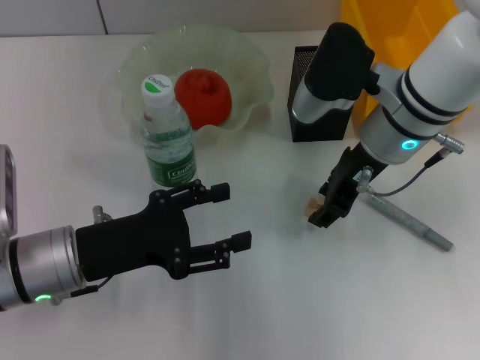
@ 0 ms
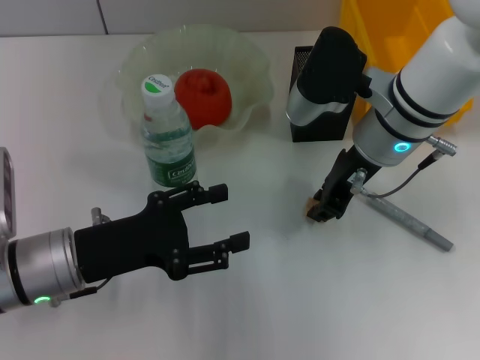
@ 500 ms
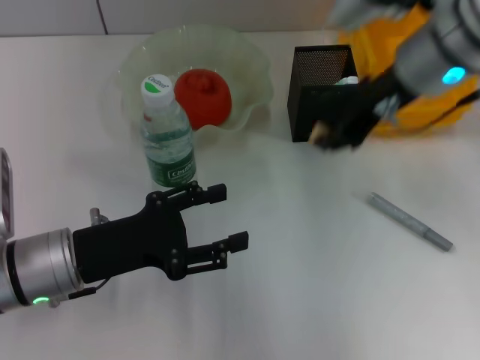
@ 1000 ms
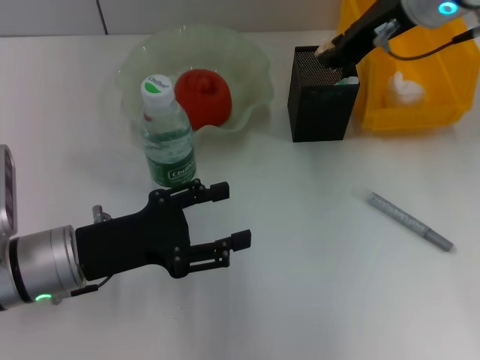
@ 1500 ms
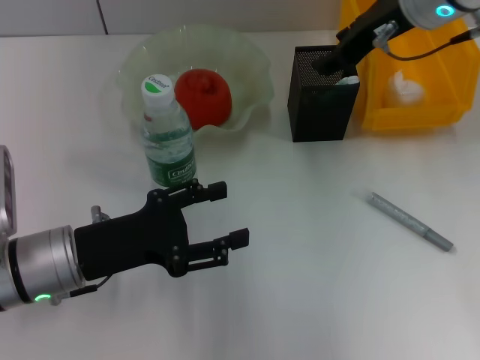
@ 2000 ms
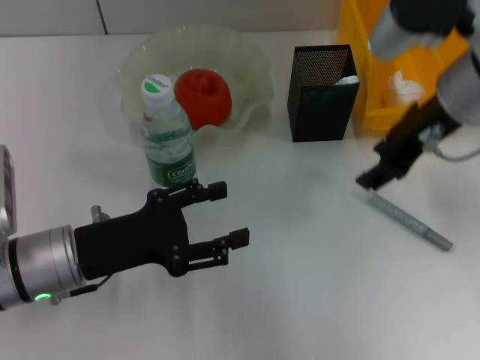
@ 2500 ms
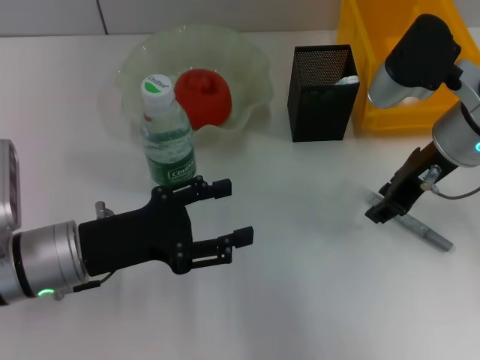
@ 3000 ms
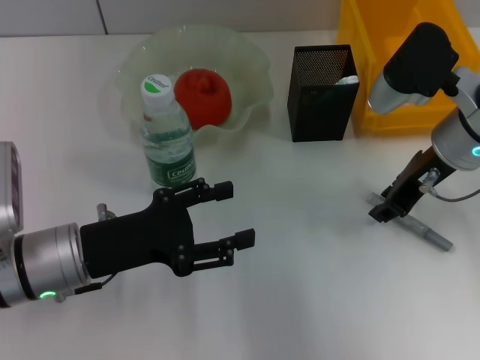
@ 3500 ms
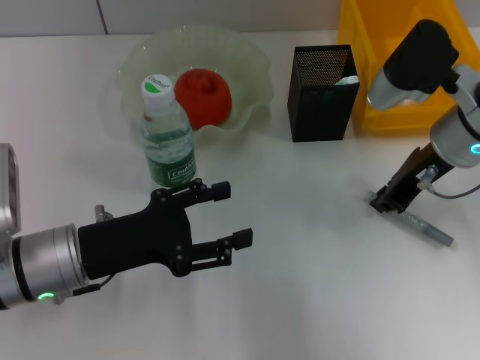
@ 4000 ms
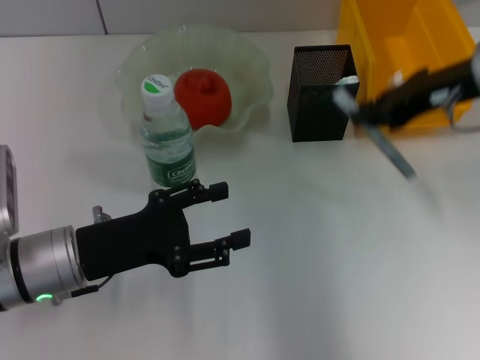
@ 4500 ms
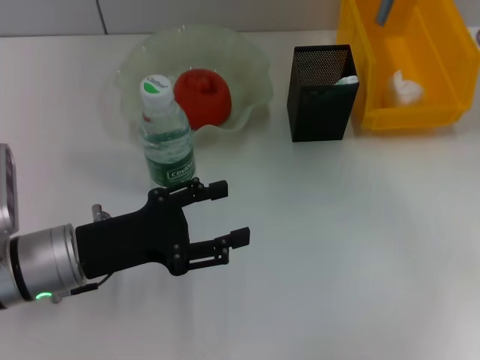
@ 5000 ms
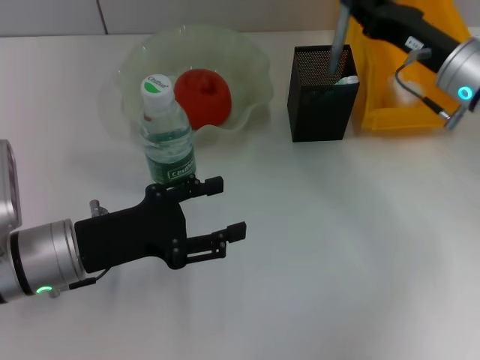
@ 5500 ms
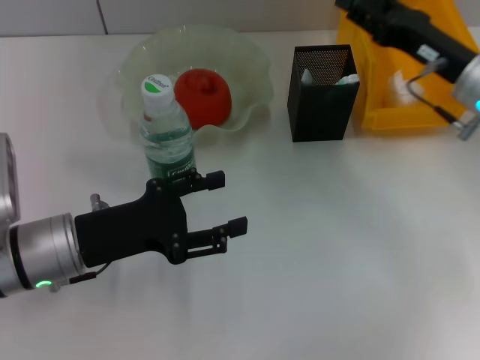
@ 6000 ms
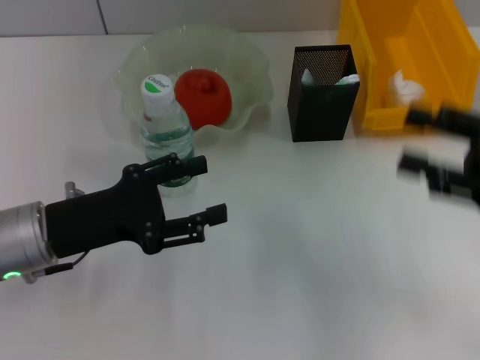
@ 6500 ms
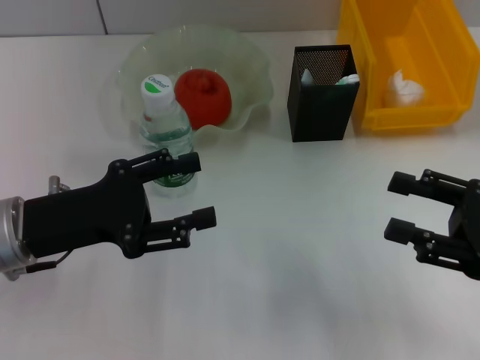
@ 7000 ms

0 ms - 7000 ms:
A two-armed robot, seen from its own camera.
Step, 500 ms - 1500 ms: Put the eraser into the pen holder with the right hand.
Step, 2000 ms - 3500 ms: Grab the gray glue with the right hand.
Step, 4000 ms - 5500 ms: Place the gray glue into the pen holder with the right hand.
0 ms - 2000 ms: The right gripper shifts roughly 10 cm upward.
2000 ms - 3500 ms: The right gripper shifts about 10 cm downward and backward.
3500 ms - 5000 ms: The right gripper goes approximately 10 cm to the right.
5000 ms - 7000 ms: The right gripper heads backward and downward, covering approximately 15 cm, and opens its fingers.

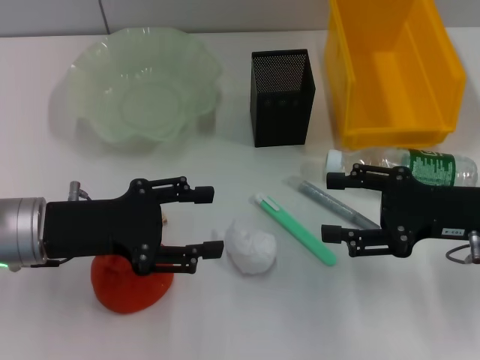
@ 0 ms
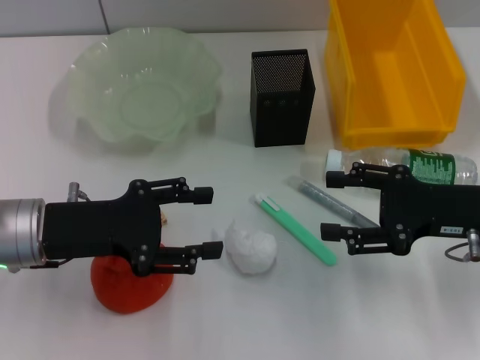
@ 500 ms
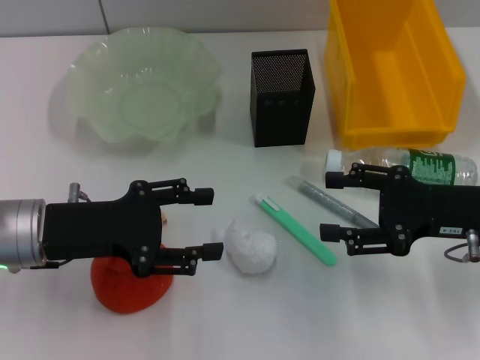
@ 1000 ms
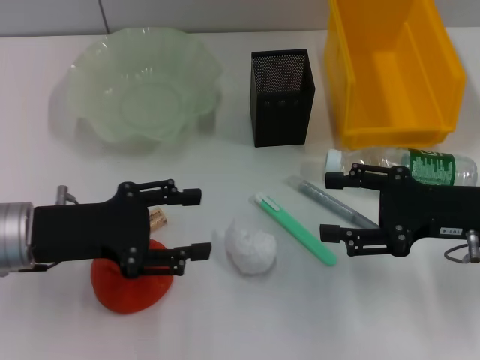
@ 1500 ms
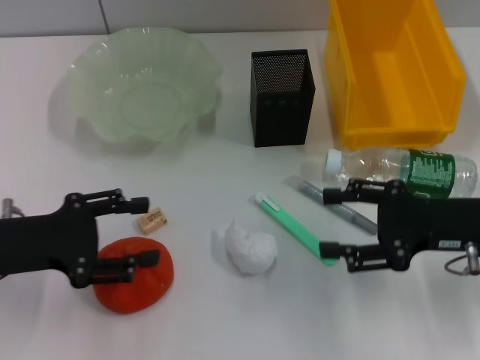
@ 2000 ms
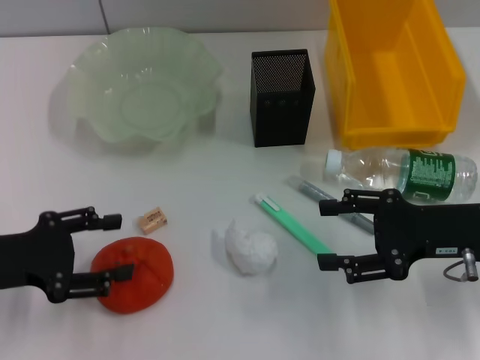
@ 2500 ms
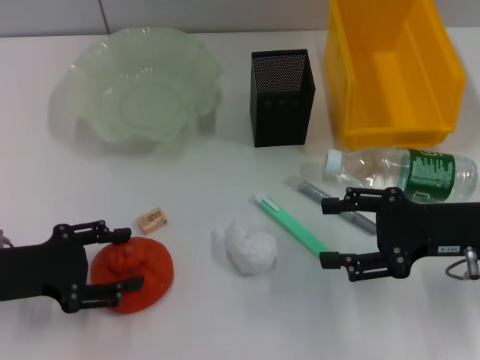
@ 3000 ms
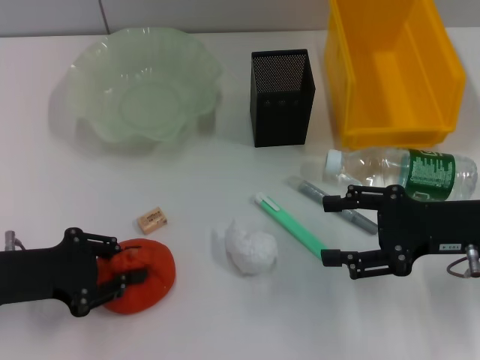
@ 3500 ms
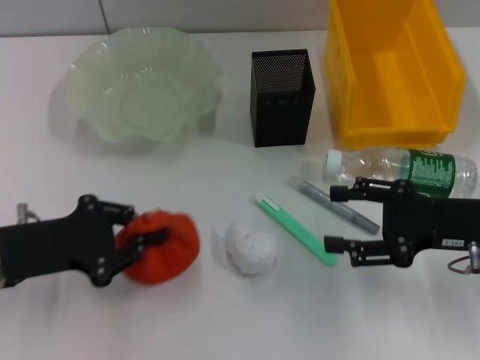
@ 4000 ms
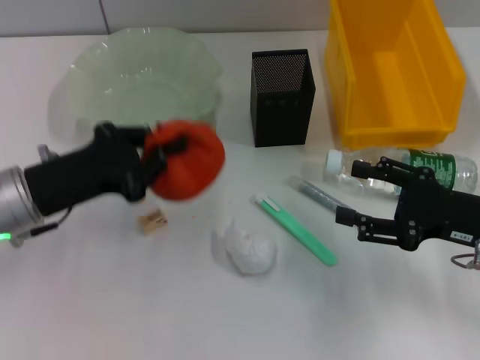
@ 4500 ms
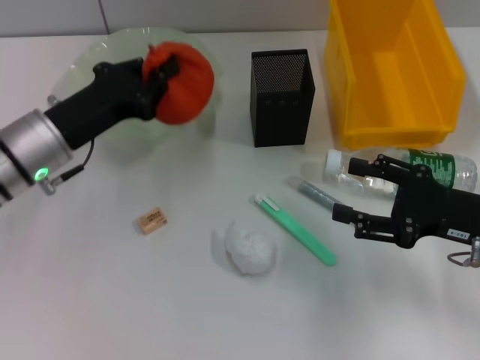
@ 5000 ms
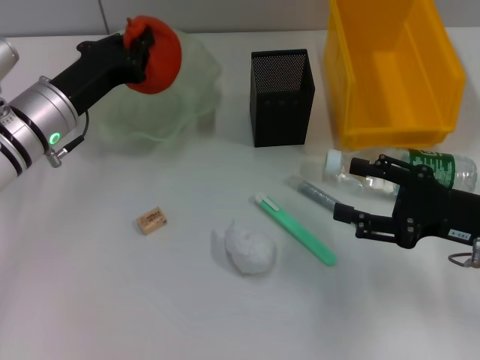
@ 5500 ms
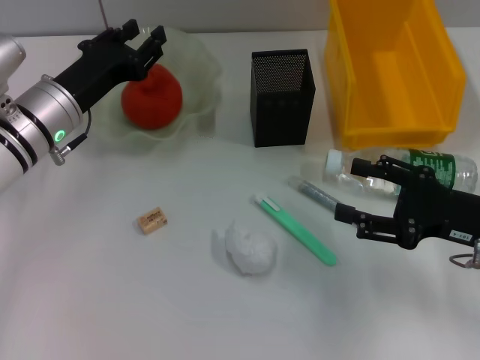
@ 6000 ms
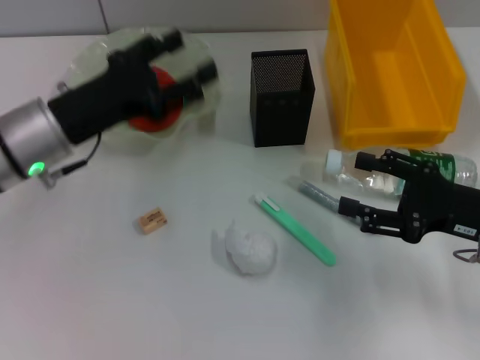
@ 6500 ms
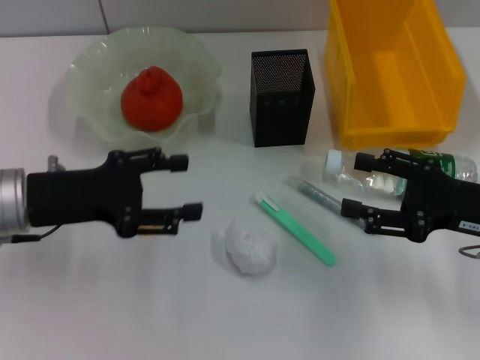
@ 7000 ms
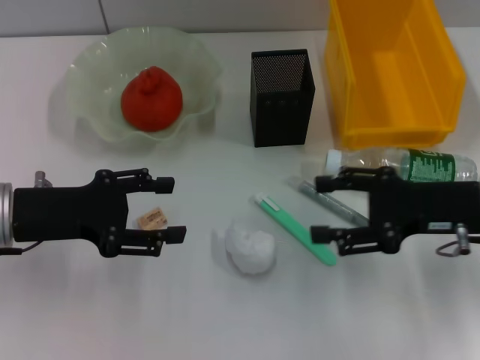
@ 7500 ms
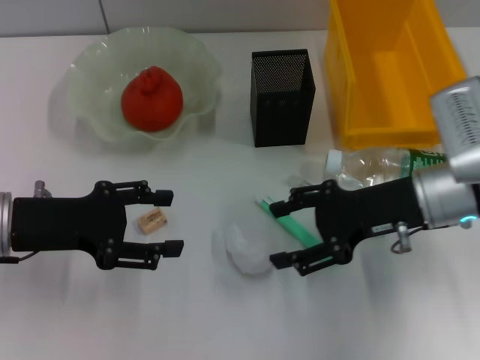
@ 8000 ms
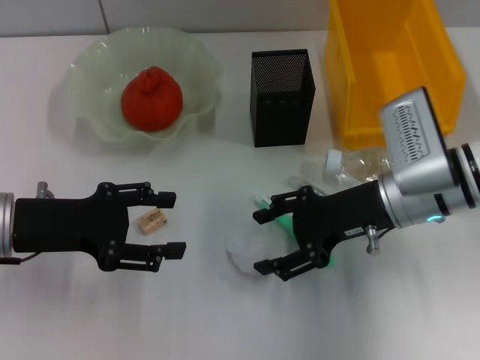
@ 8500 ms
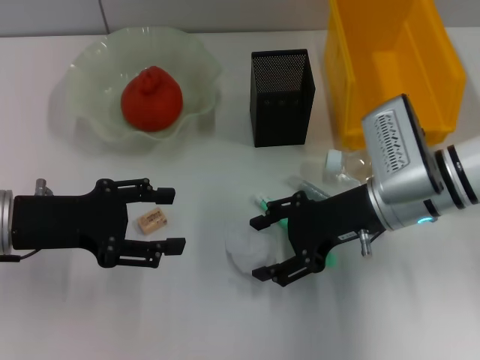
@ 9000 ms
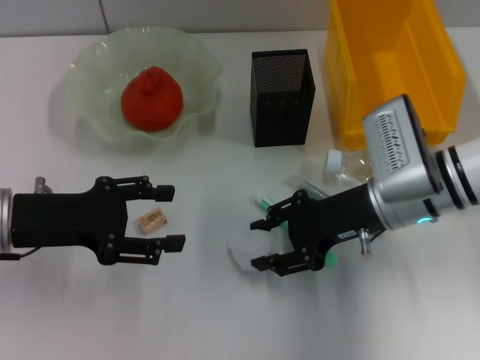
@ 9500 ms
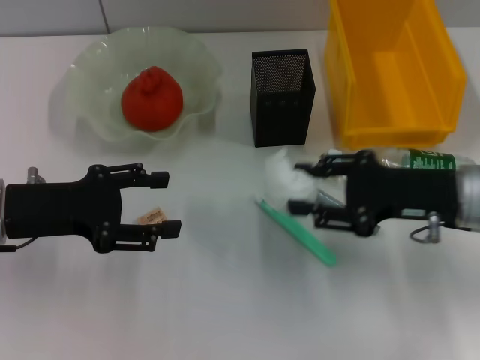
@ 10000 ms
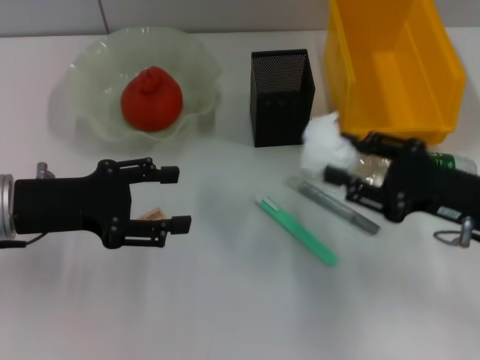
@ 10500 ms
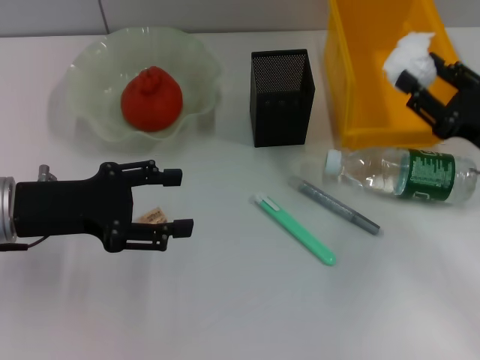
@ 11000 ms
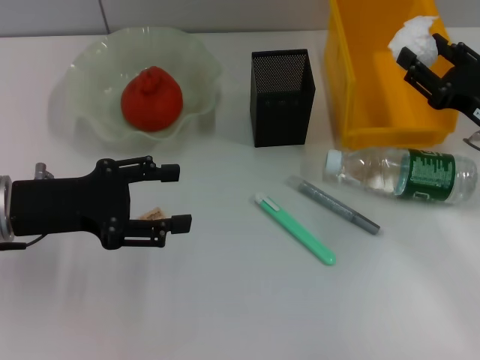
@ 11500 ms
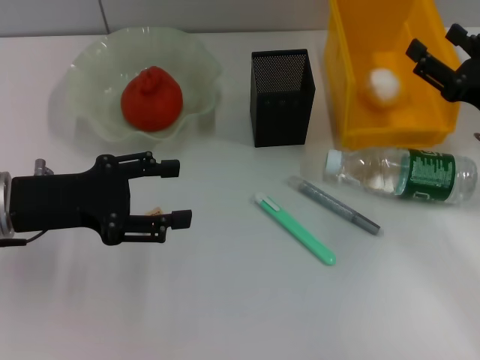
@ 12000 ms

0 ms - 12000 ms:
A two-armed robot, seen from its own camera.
Step, 0 ms - 3500 ms: Grab the orange with the left hand.
Step, 4000 ms - 6000 ms: Place the orange into the fruit bowl with the left hand.
Step, 6500 ms - 9000 ms: Grab the paper ball with the right hand.
Step, 9500 ms - 11500 ms: Place the paper ball into the trash can with the right hand.
0 ms - 2000 ms: The left gripper travels to the left by some 5 cm.
2000 ms - 4000 ms: The left gripper closes its fingers.
4000 ms - 6000 ms: The left gripper is displaced forward and to the right by some 15 cm.
6000 ms - 8000 ms: The left gripper moves backward and to the left, roughly 10 cm, and opens up. Meanwhile the right gripper heads to the left and forward, covering approximately 10 cm.
8000 ms - 10000 ms: The right gripper closes its fingers.
10000 ms - 12000 ms: The right gripper is displaced to the right by roughly 5 cm, and opens.

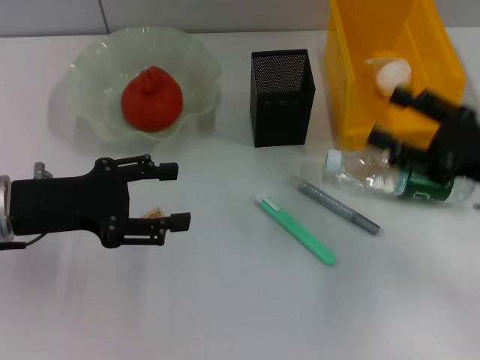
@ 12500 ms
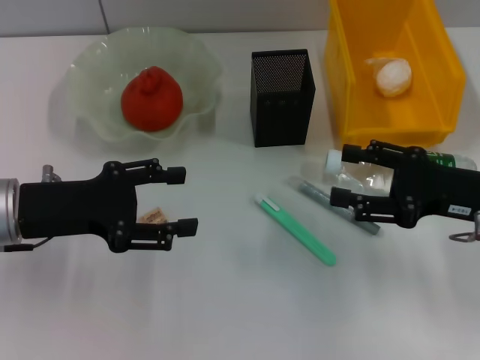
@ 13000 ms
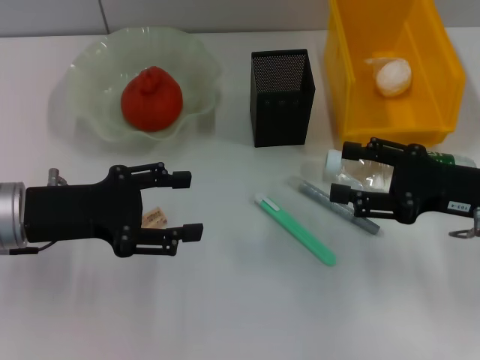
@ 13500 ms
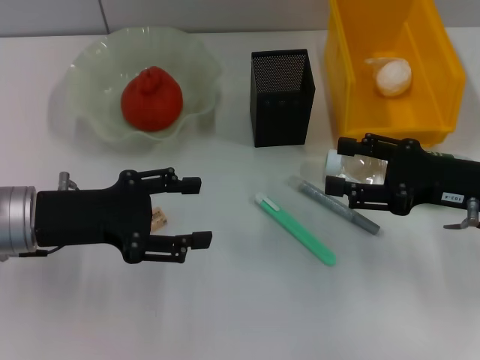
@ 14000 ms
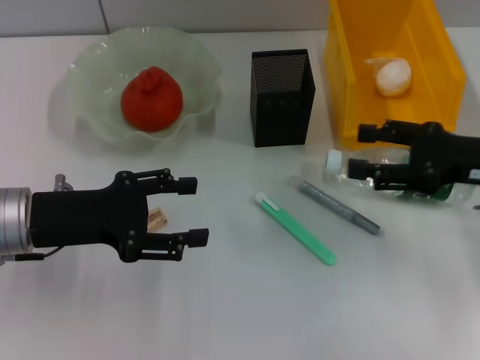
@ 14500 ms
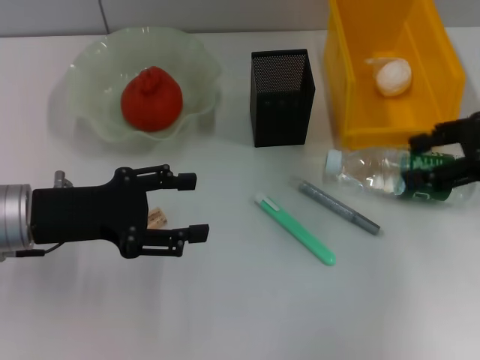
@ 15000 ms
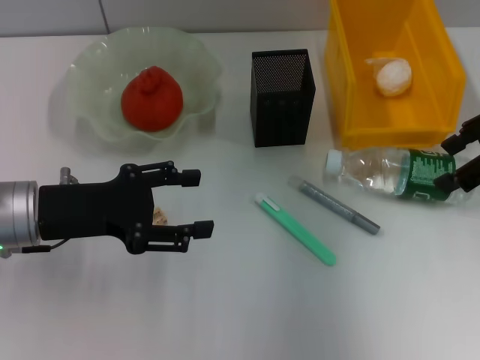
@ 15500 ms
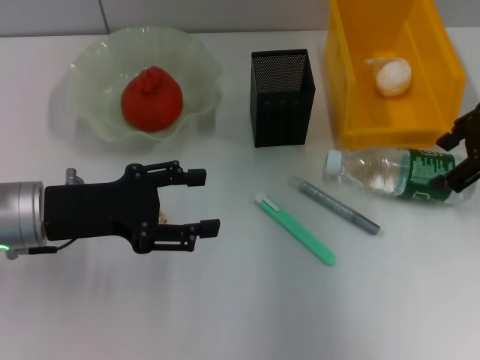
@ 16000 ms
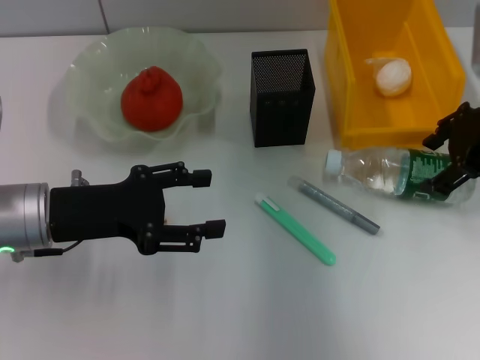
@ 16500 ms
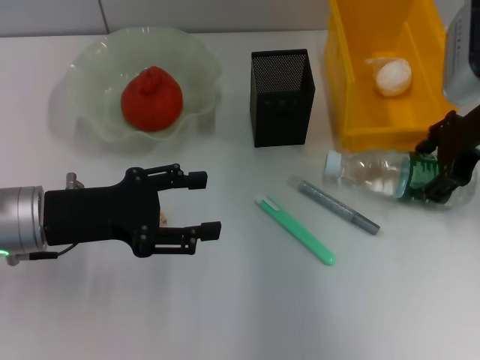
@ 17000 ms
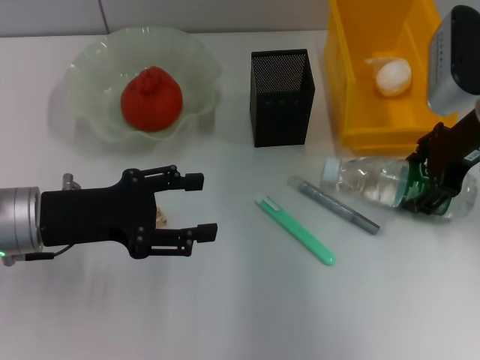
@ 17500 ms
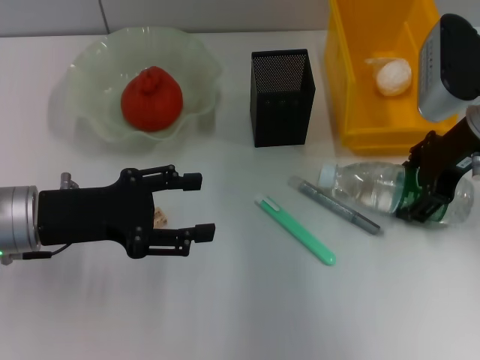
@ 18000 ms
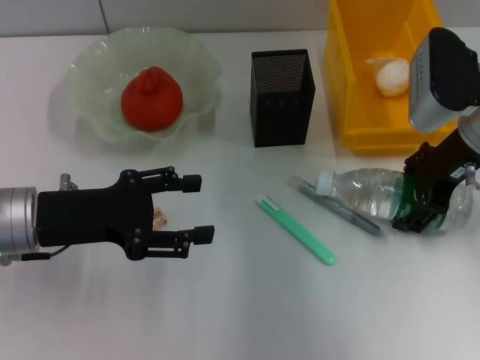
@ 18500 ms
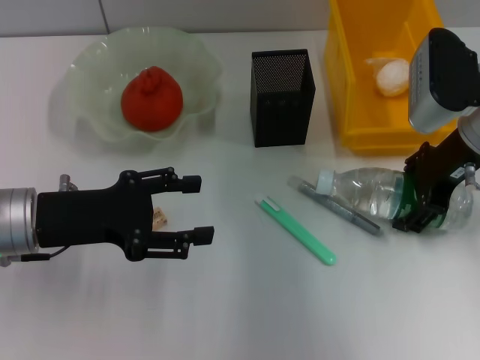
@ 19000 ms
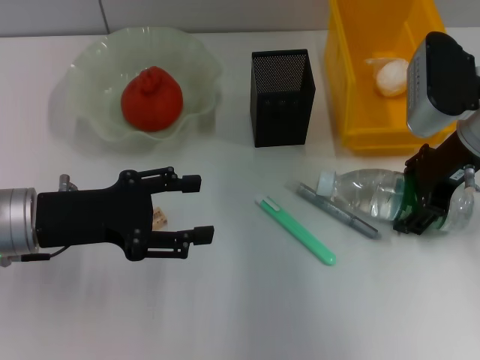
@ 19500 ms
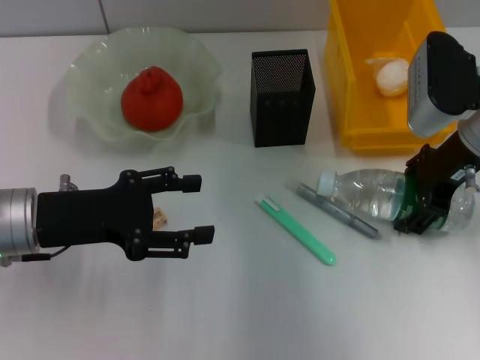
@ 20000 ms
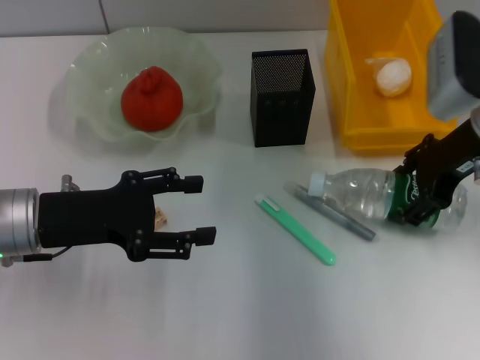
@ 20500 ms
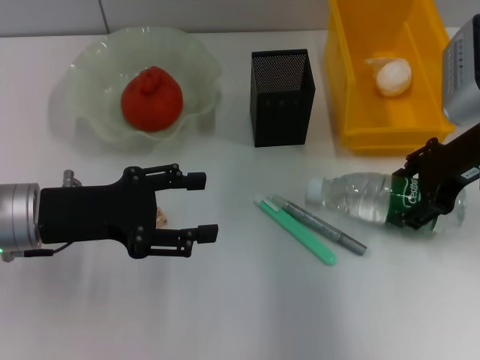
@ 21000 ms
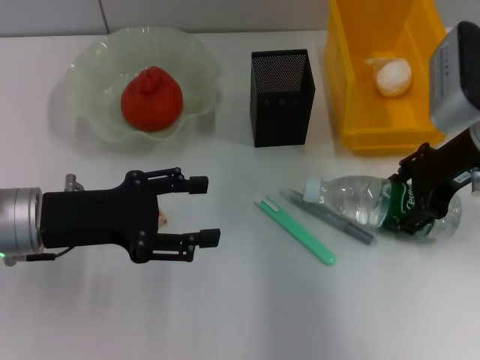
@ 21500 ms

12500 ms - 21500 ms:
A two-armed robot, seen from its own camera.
12500 ms - 14500 ms: The grippers move only a little.
14500 ms - 17000 ms: The right gripper moves forward, approximately 10 cm.
17000 ms - 21500 ms: The grippers make only small movements.
